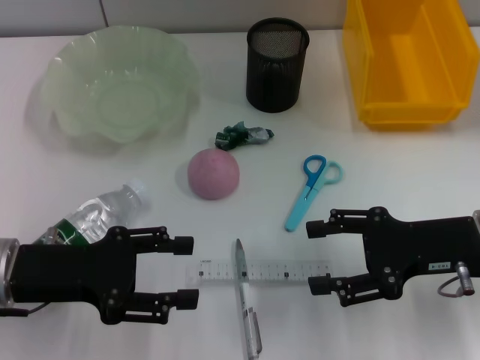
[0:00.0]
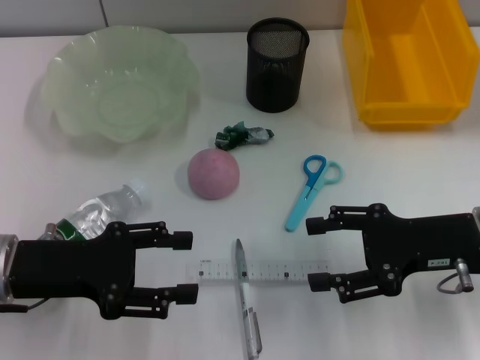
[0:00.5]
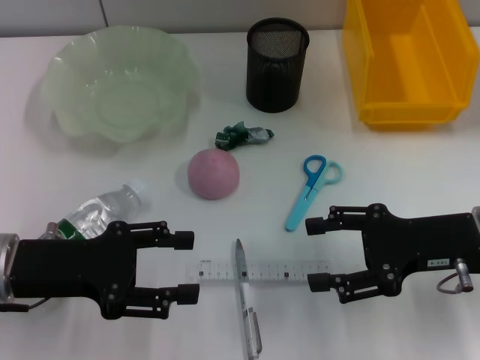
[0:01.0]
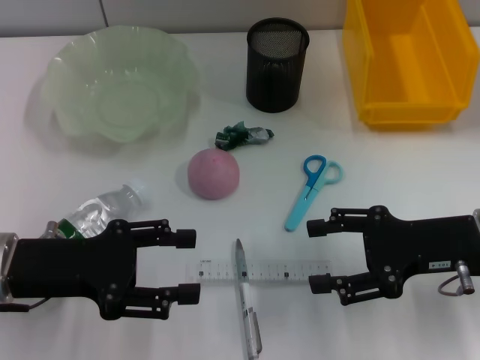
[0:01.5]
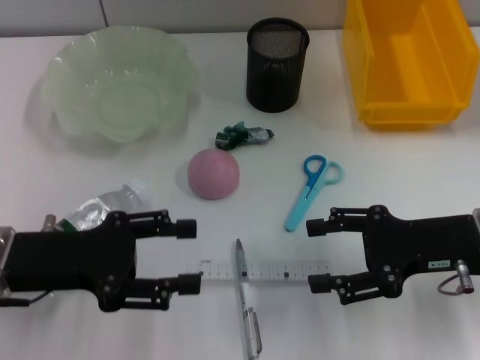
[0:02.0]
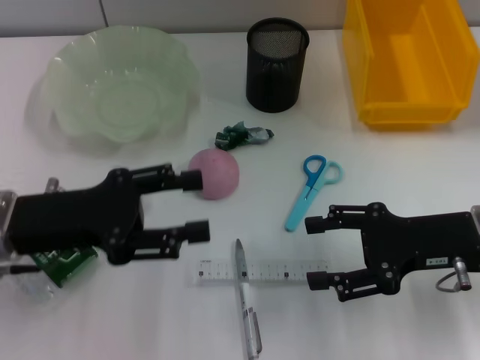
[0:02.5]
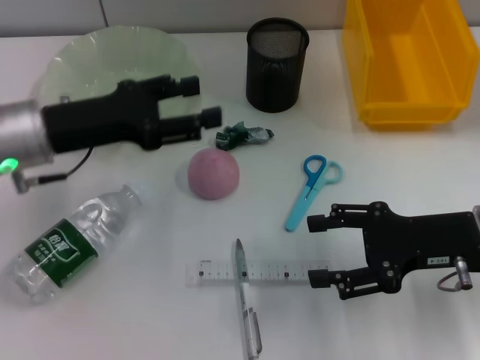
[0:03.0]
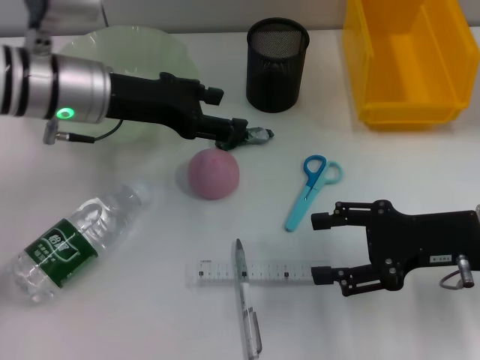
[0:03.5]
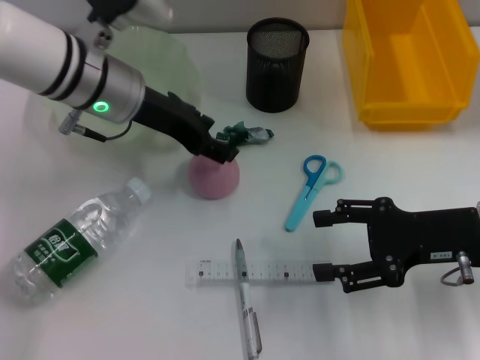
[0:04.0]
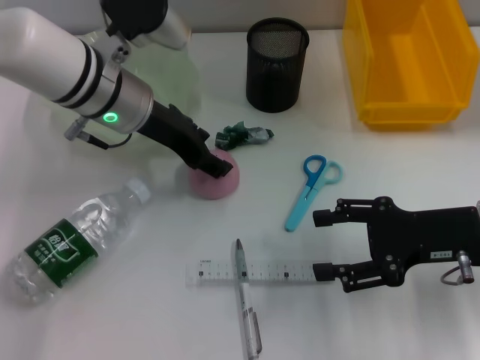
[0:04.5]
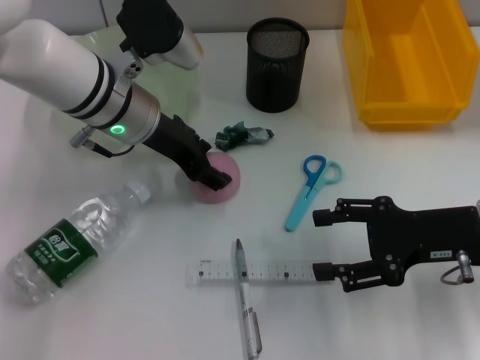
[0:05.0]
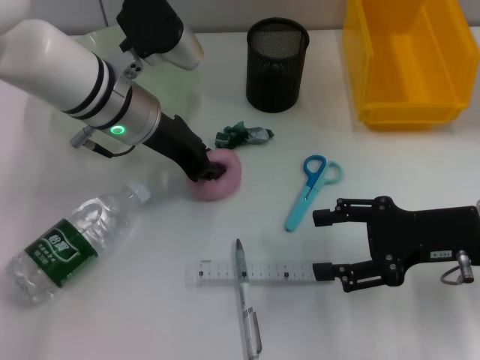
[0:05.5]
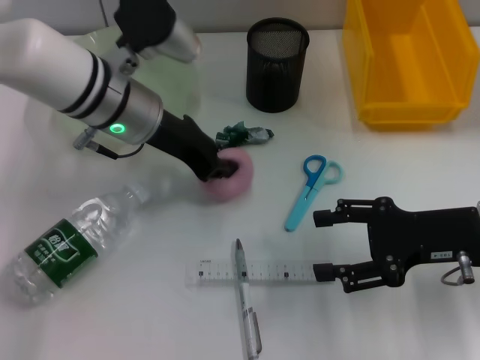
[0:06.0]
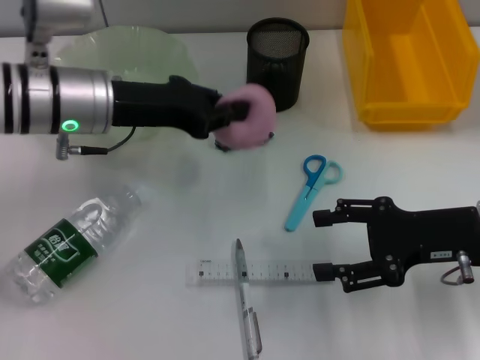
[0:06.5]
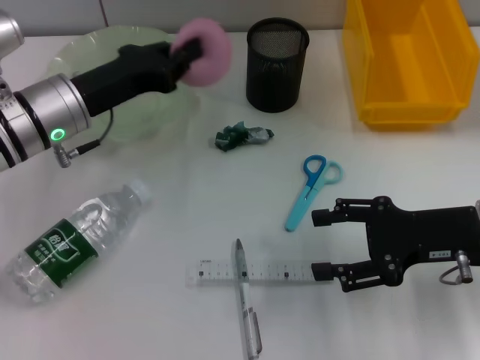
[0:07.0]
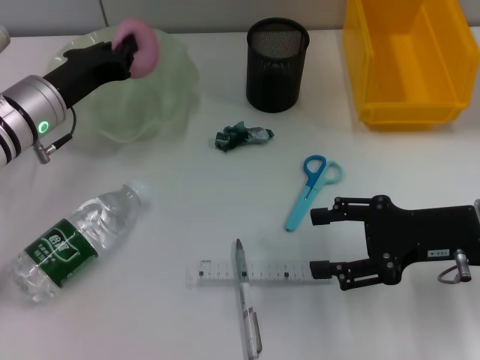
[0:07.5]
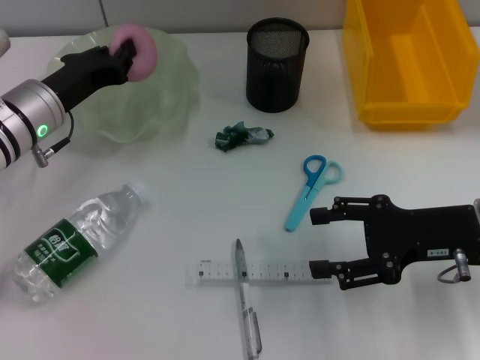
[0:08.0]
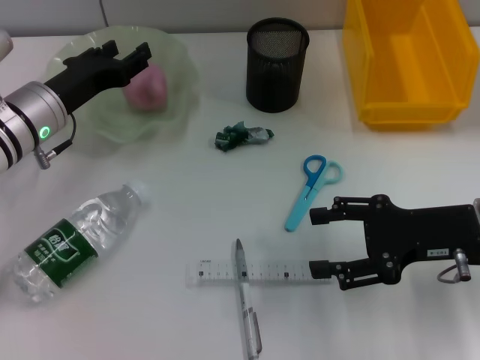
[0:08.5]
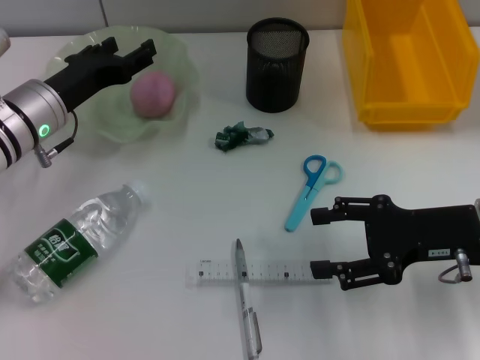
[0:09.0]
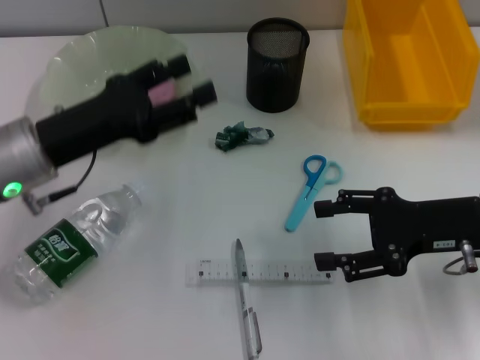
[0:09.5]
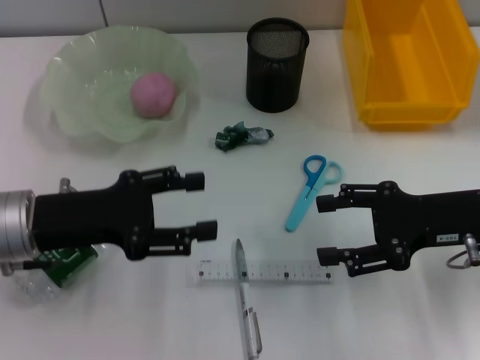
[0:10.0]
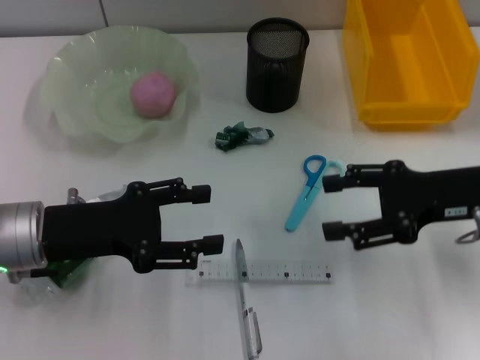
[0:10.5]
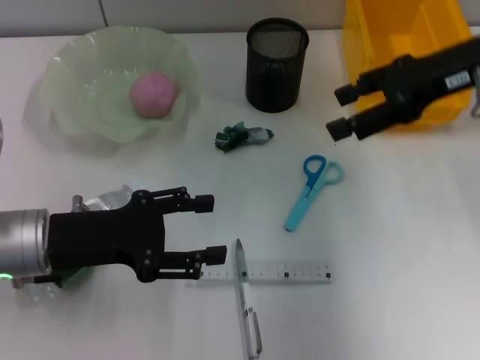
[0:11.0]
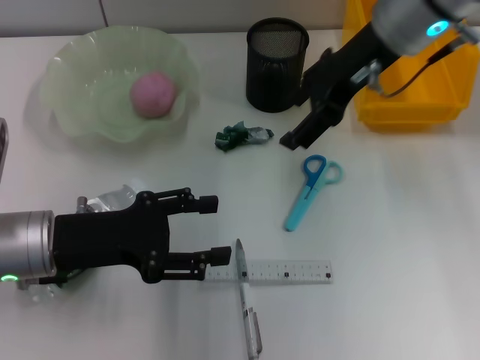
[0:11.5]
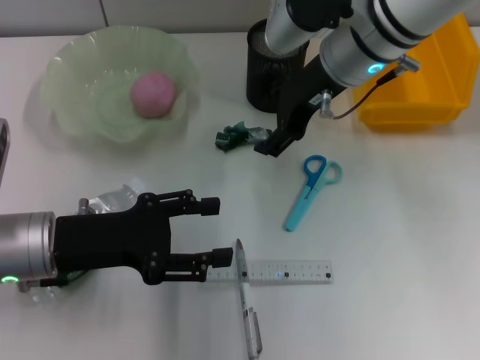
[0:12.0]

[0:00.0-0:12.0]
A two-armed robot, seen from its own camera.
Step, 0:00.0 to 0:05.5: Grab the peach with the left hand.
Step, 0:06.0 to 0:08.5: Place the peach into the fruit bowl with the left hand.
0:00.0 to 0:02.0: The grippers stay close to where they were, moving slightly.
0:02.0 to 0:04.0: The left gripper heads forward and to the right, covering some 20 cm.
0:04.0 to 0:06.0: The left gripper closes.
0:06.0 to 0:08.0: The left gripper goes some 10 cm to the left and downward.
0:08.0 to 0:10.0: The left gripper shifts some 10 cm backward, and opens up.
0:10.0 to 0:12.0: The right gripper goes roughly 20 cm to the left, forward and upward.

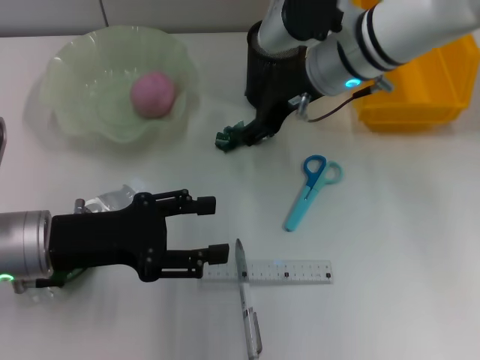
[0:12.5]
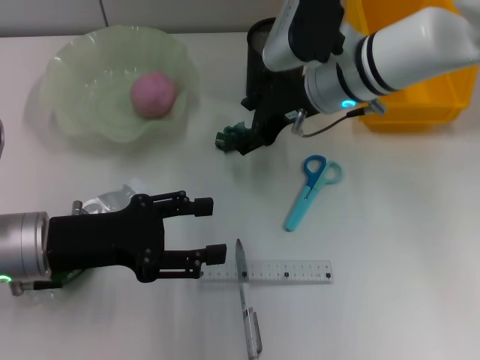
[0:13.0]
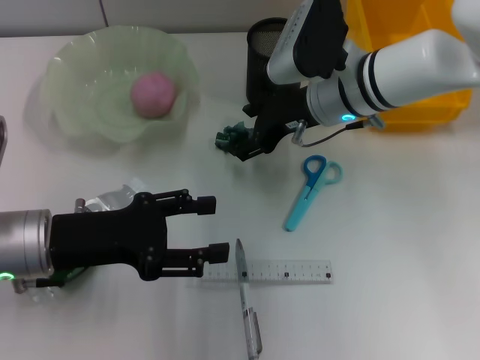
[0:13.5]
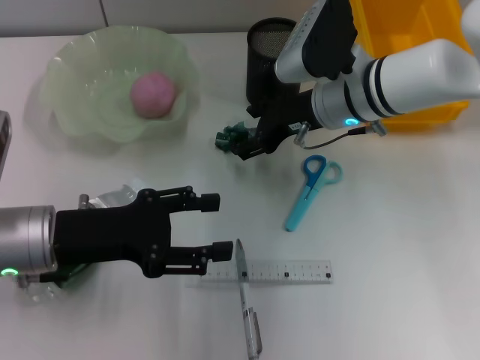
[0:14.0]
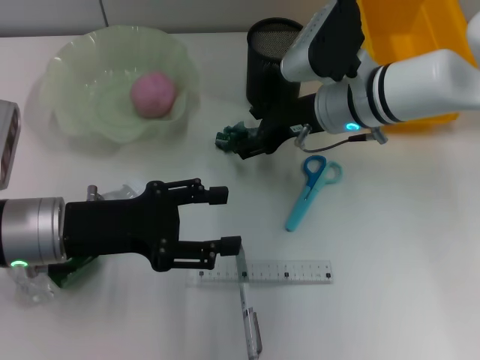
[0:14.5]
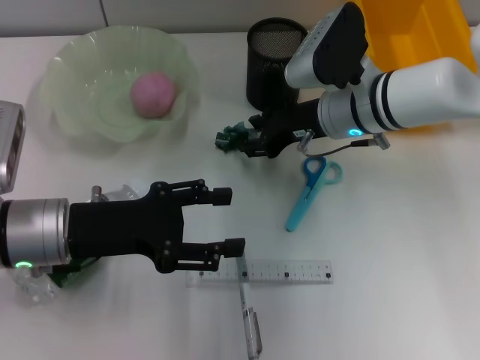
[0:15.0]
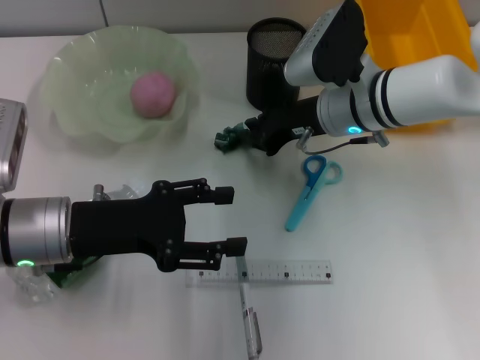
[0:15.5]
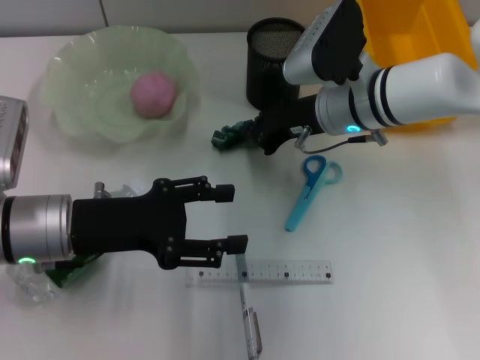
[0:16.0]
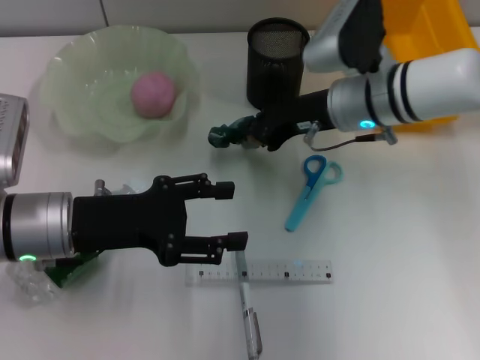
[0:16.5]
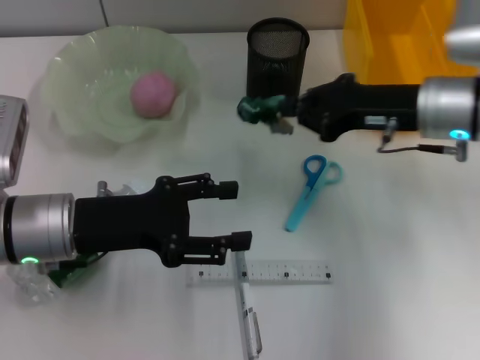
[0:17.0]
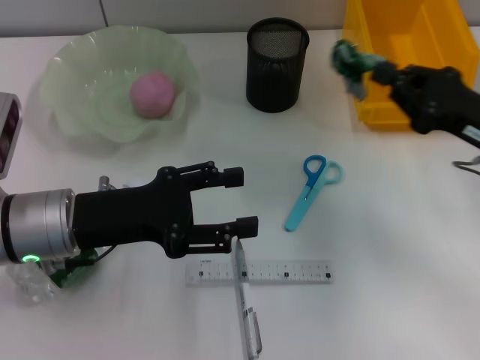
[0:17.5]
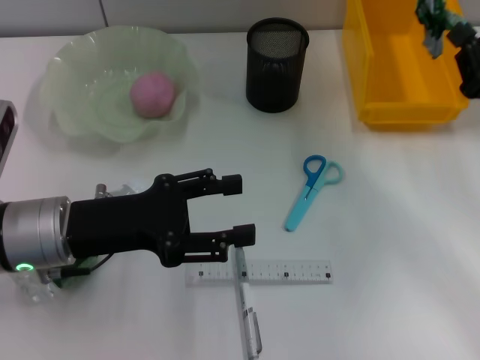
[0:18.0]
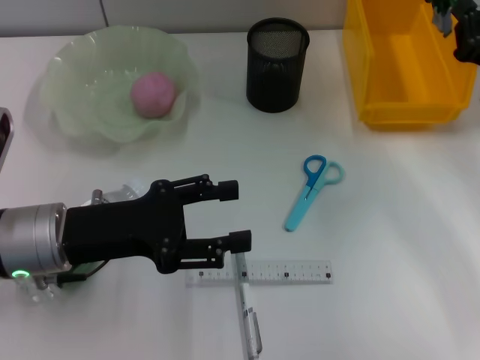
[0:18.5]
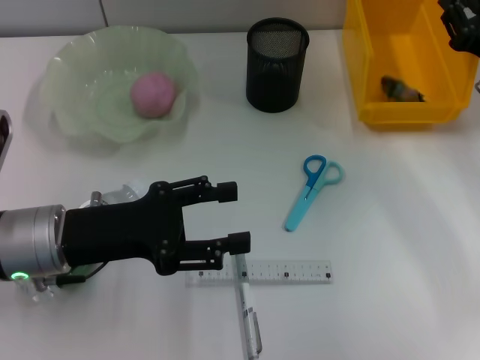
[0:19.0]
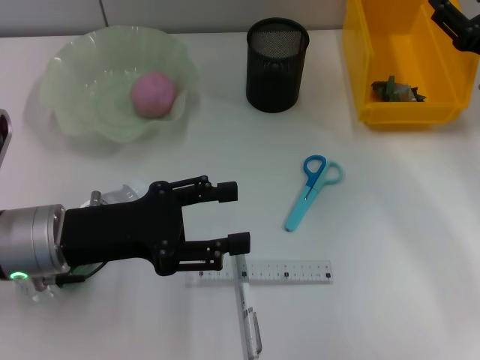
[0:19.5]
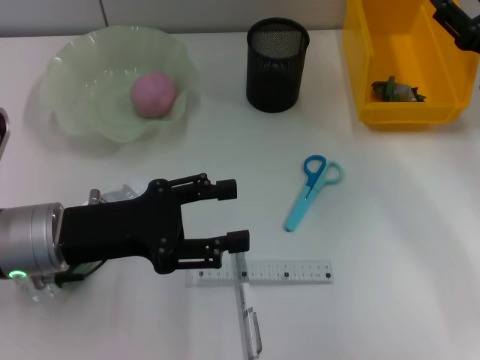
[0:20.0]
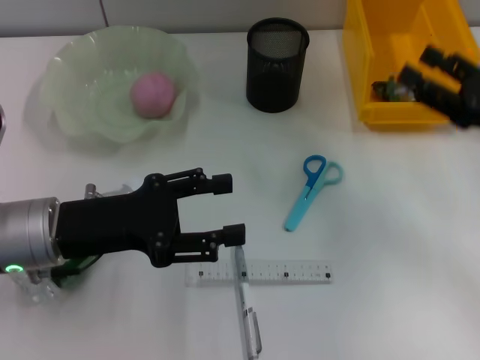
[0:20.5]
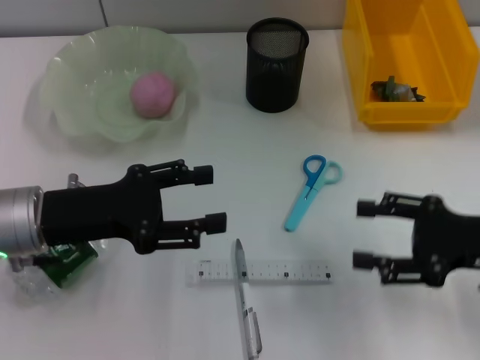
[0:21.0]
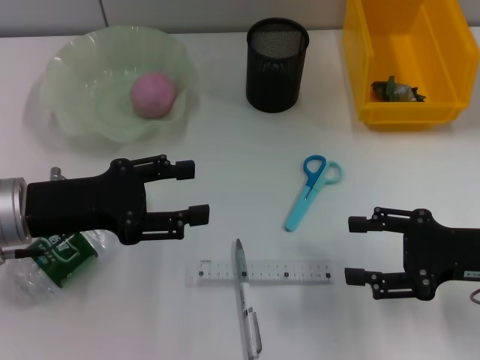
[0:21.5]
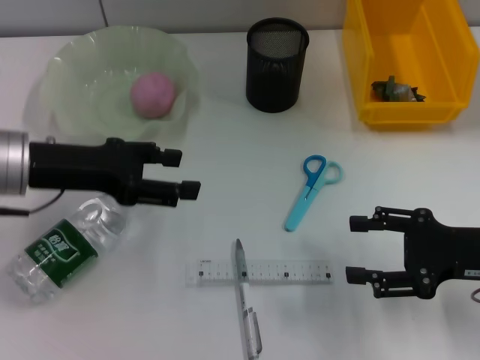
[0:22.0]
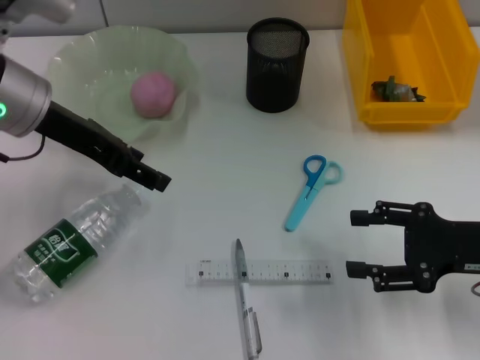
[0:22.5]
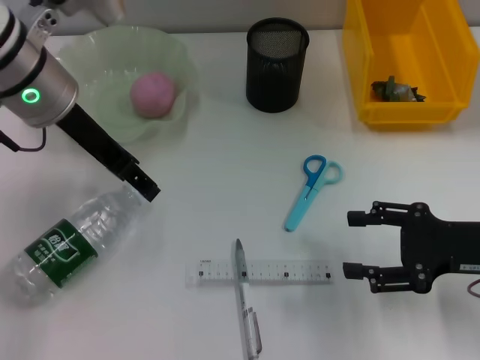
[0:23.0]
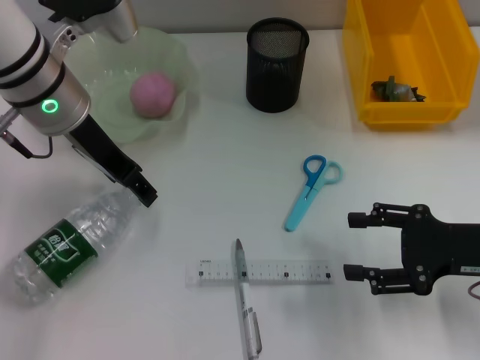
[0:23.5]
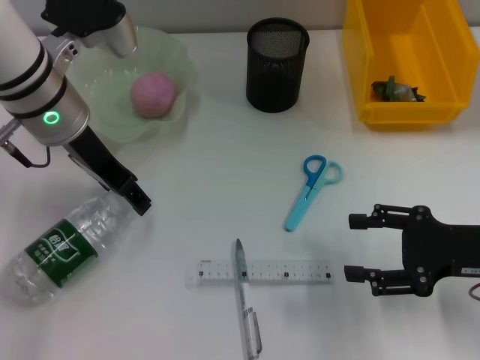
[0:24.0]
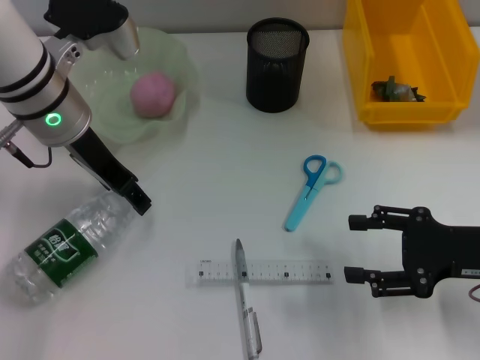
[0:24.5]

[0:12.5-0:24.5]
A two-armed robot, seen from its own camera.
Step, 0:12.5 to 0:16.0: Grab the plastic with the right hand.
Step, 0:16.5 to 0:19.0: Place the plastic into the trash can with the right hand.
0:12.5 to 0:14.5: The right gripper travels downward by approximately 5 cm.
0:14.5 to 0:16.5: The right gripper closes up.
0:16.5 to 0:18.5: The right gripper is displaced to the right by approximately 15 cm.
0:18.5 to 0:20.5: The right gripper is displaced backward by some 5 cm, and opens.
0:20.5 to 0:22.5: The right gripper ends up about 5 cm from where it was. Meanwhile the left gripper moves forward and upward, roughly 15 cm.
0:22.5 to 0:24.5: The left gripper ends up approximately 5 cm from where it was.

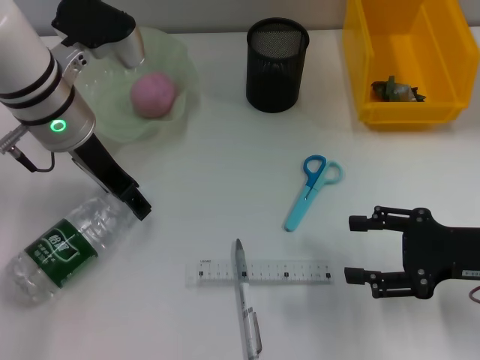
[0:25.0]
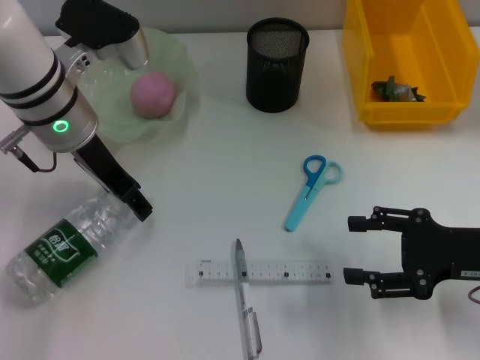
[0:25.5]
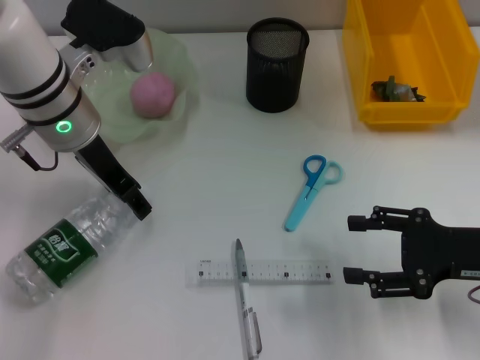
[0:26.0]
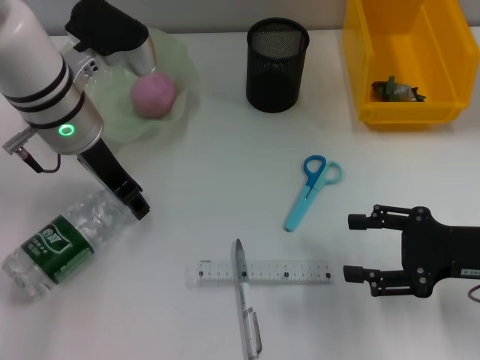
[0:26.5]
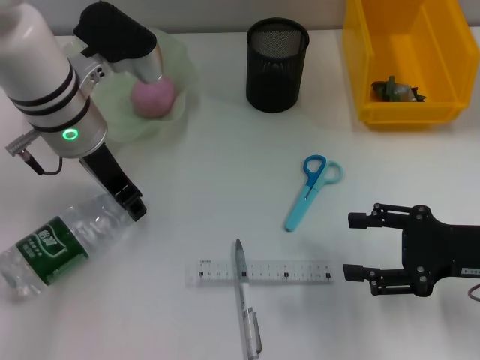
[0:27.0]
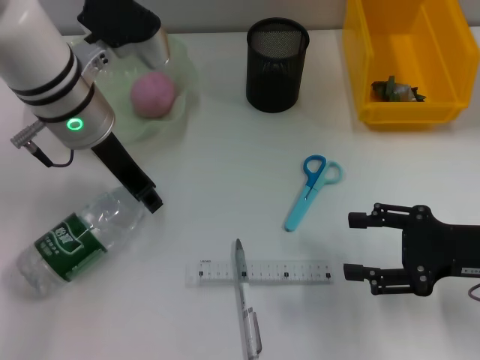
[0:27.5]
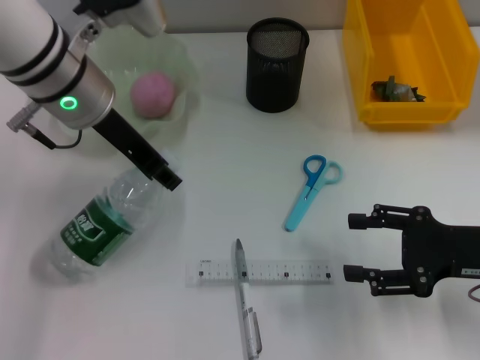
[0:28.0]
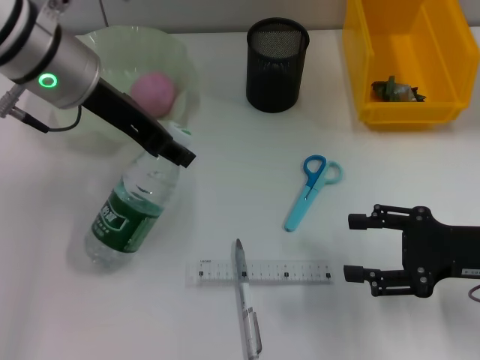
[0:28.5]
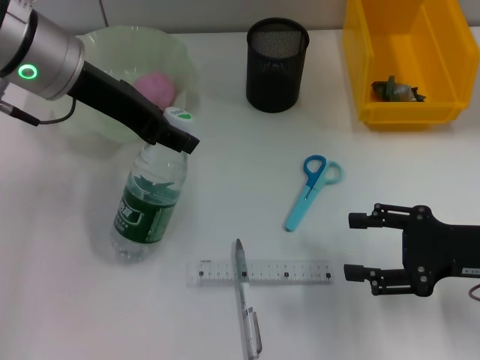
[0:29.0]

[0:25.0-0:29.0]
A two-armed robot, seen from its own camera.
Step, 0:25.0 to 0:27.0: Grab the water bottle with the left hand.
0:25.0 to 0:27.0: The left gripper closes up.
0:27.0 to 0:29.0: The left gripper goes some 5 cm upward.
